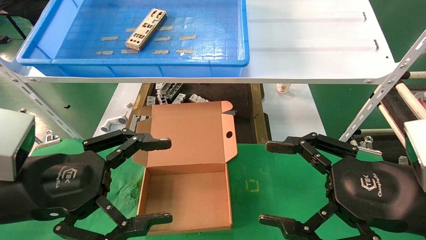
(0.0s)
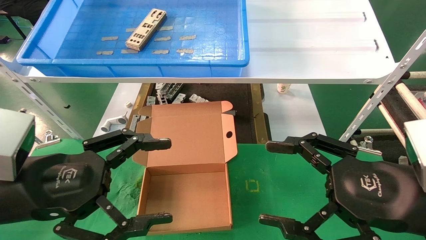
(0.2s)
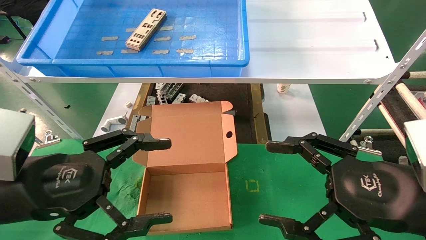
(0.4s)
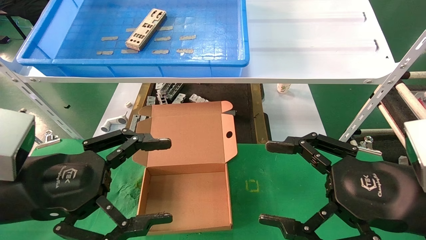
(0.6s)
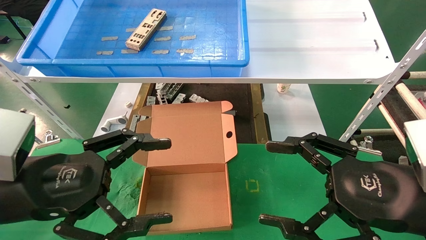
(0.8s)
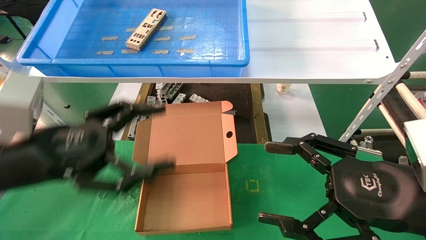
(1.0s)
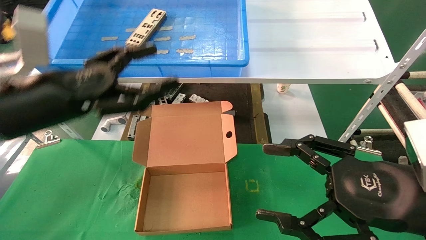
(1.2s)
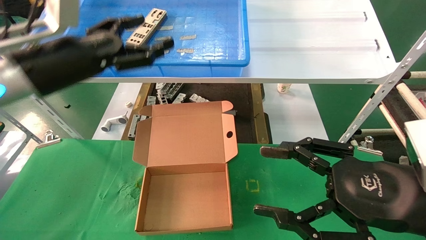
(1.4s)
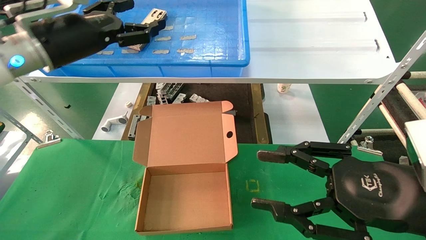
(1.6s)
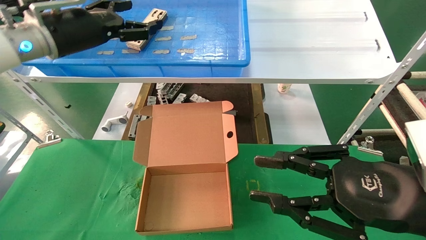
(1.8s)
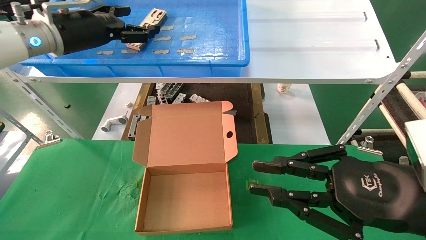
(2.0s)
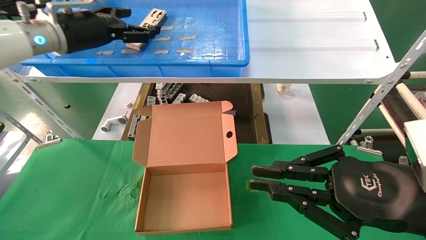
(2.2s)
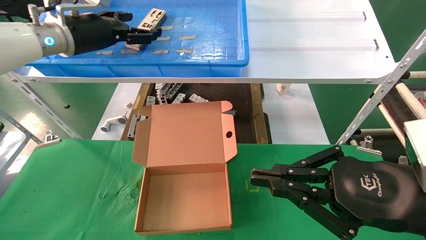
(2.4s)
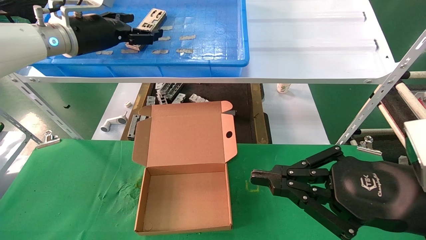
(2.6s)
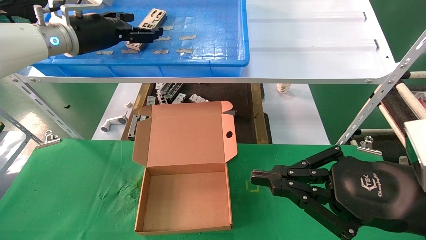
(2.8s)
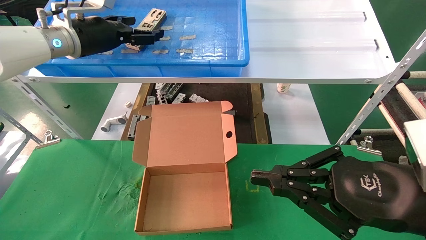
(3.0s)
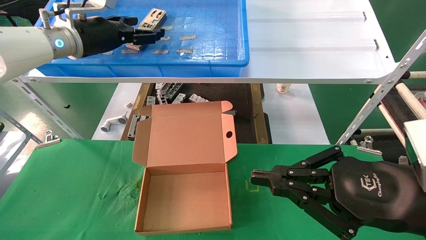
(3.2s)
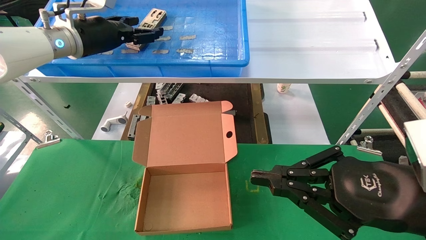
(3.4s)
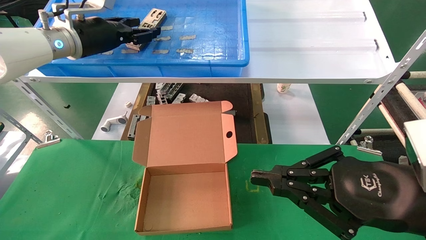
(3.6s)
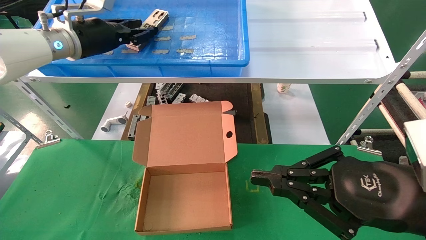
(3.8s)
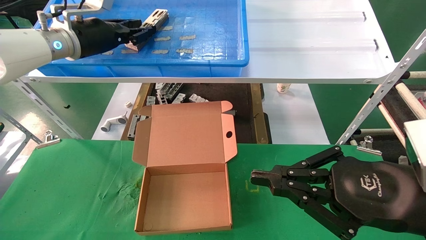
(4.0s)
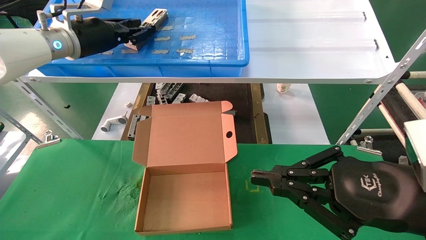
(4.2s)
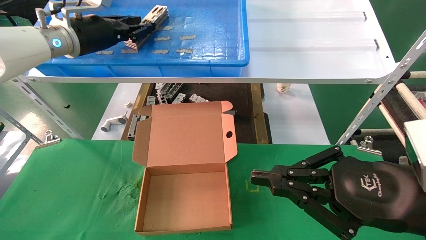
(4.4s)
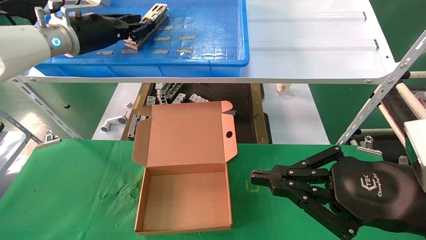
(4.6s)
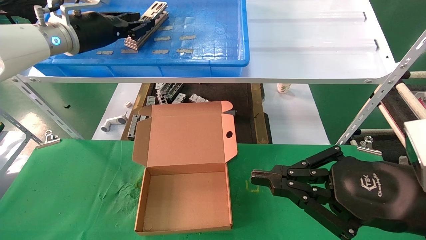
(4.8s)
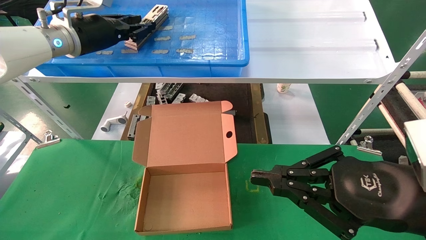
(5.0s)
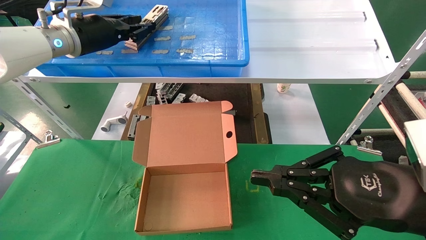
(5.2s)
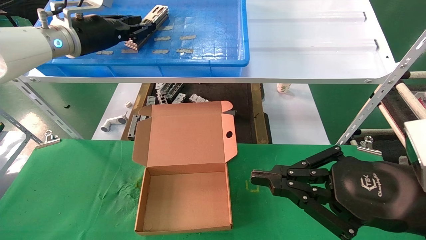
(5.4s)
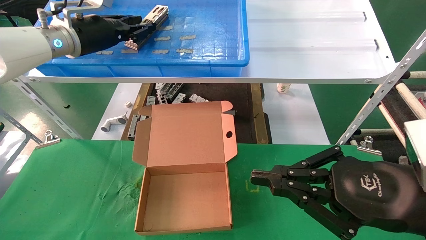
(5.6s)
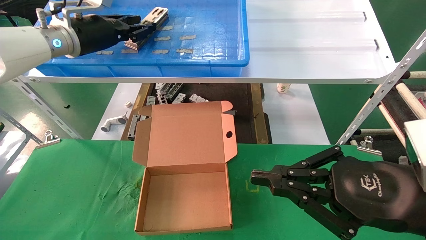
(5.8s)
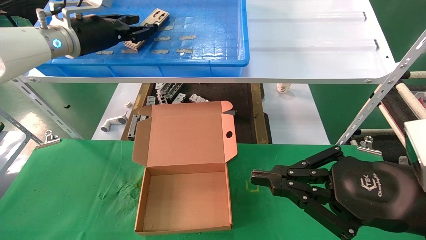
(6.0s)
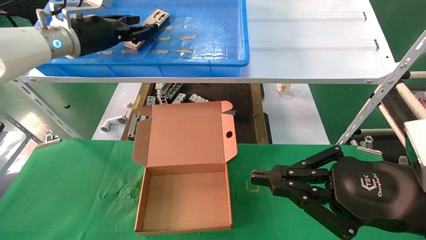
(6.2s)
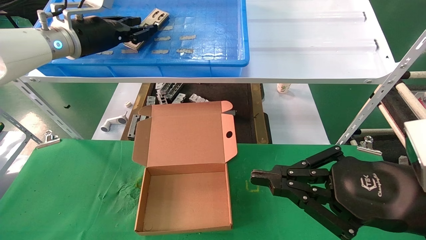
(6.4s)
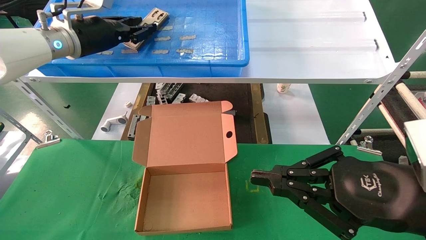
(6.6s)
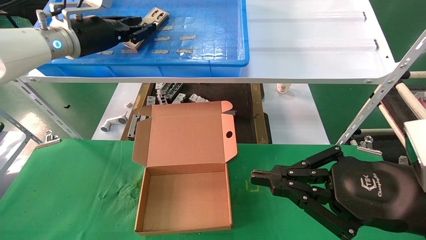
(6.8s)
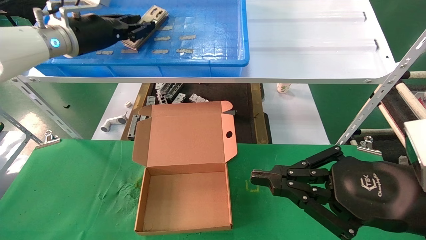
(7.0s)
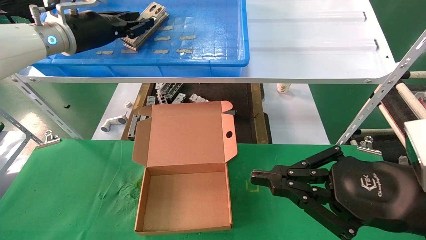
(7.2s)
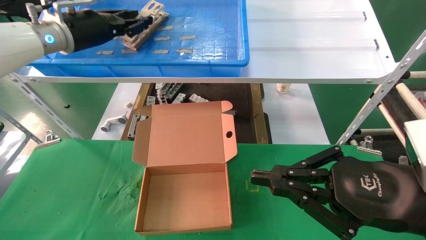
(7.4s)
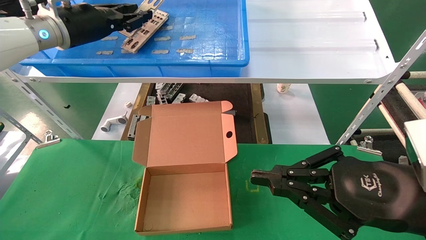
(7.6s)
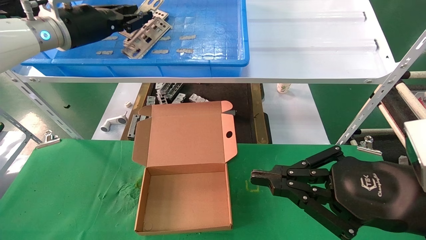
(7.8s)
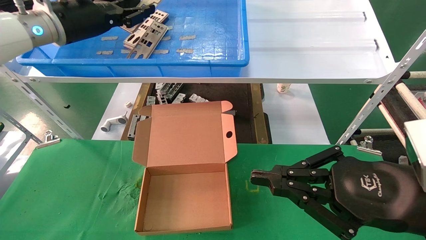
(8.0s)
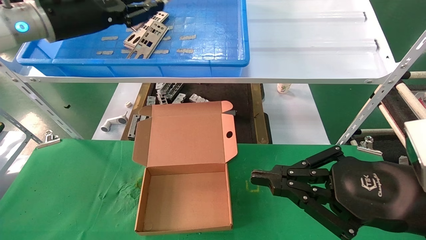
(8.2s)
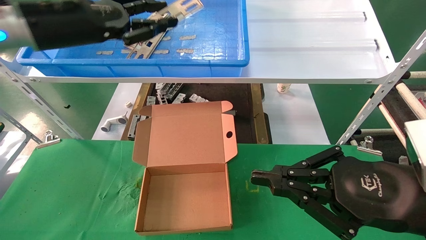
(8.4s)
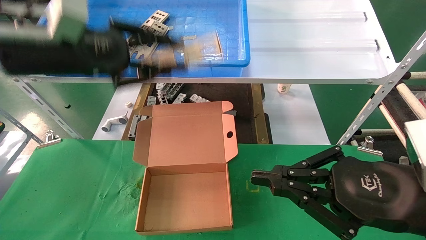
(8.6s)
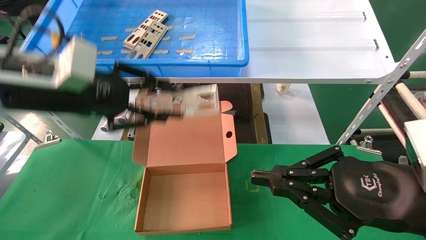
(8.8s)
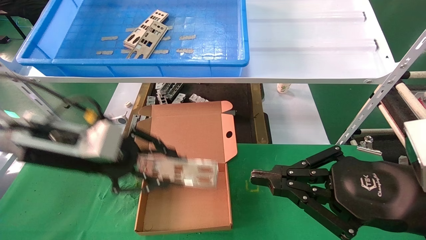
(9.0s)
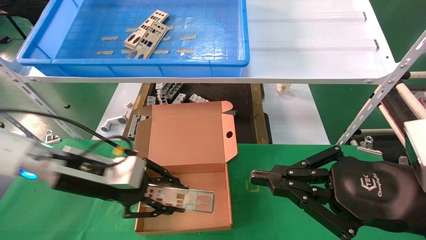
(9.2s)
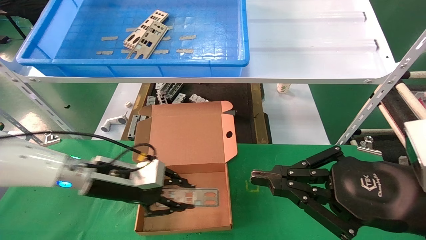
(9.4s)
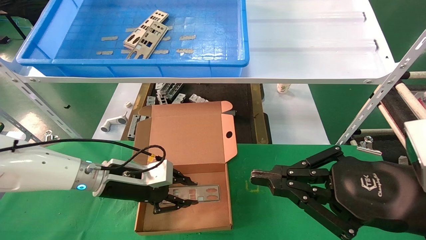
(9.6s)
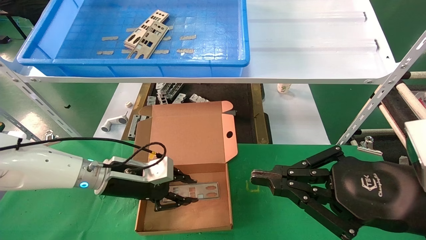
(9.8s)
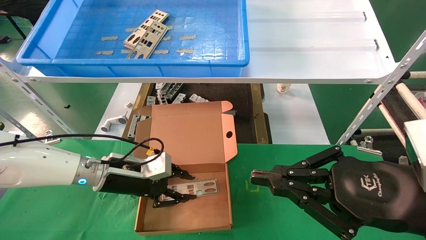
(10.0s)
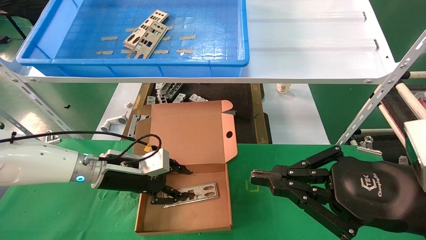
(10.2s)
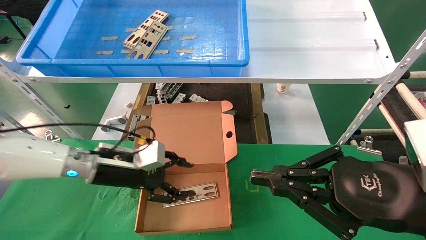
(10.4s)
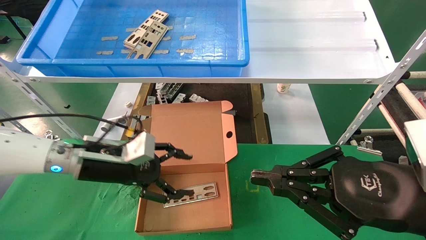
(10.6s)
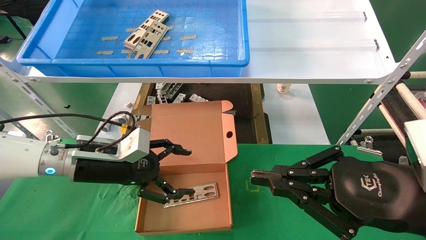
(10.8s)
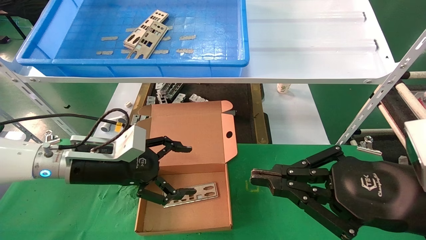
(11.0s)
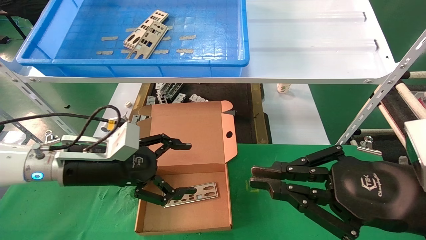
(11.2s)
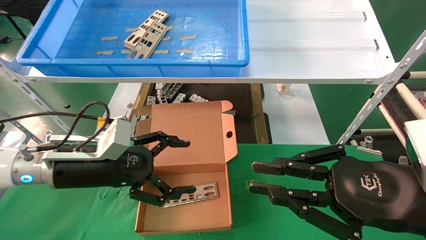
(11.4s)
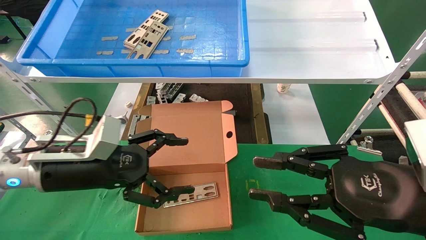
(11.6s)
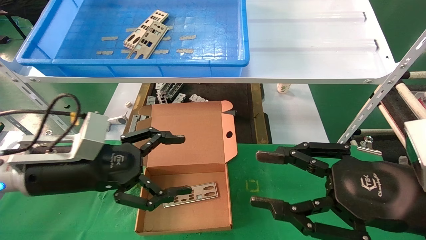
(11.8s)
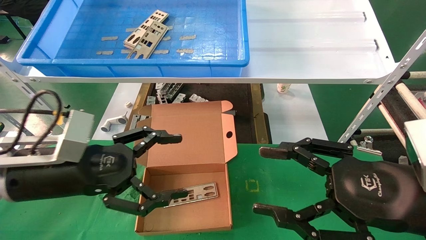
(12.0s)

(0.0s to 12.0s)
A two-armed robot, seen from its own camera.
Task of the whole recording: pick up the parts on the tray and put them in the cardboard box.
Step, 1.4s - 7.2s: Pick up the IO bracket from the container box.
Step, 7.4s - 10.4s: Place the IO bracket into the ingredient slot.
0.0s - 1.6s: The left gripper shifts some 20 cm forward and upward.
1.6s - 3.0s: The left gripper is displaced forward by some 10 cm. The right gripper closes.
3.0s - 4.4s: The left gripper closes.
4.4s - 6.0s: Both grippers stay put.
6.0s - 7.6s: The grippers move only a little.
7.6s - 9.0s: The left gripper is displaced downward and backward by roughly 20 cm.
9.0s - 10.4s: The left gripper goes approximately 10 cm downward and forward, and opens.
10.4s - 12.0s: The right gripper opens; the left gripper heads backward and upward, covering approximately 15 cm, and opens its fingers.

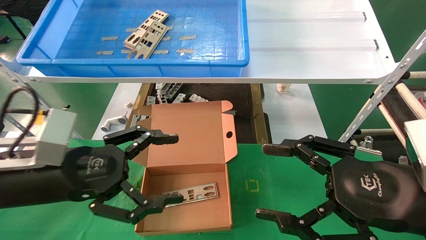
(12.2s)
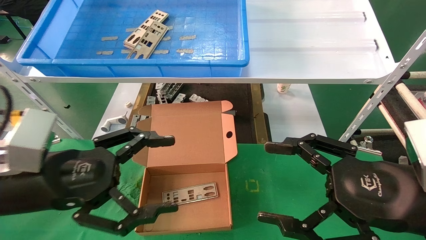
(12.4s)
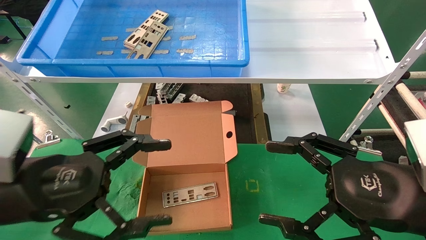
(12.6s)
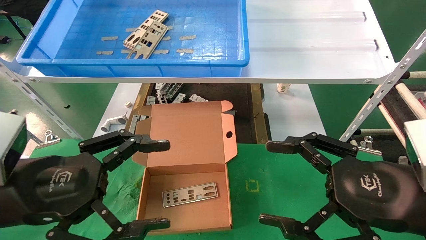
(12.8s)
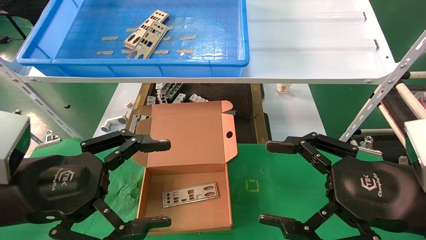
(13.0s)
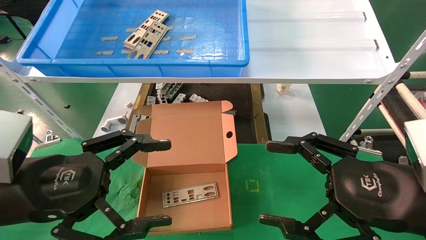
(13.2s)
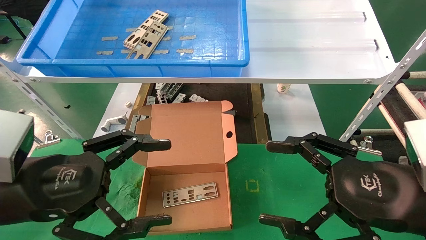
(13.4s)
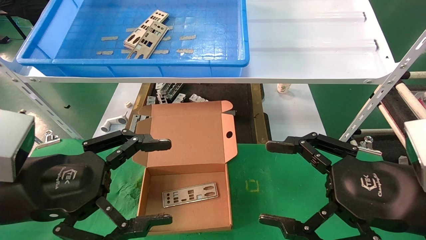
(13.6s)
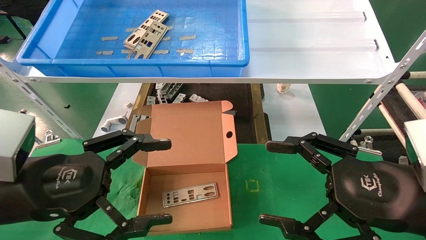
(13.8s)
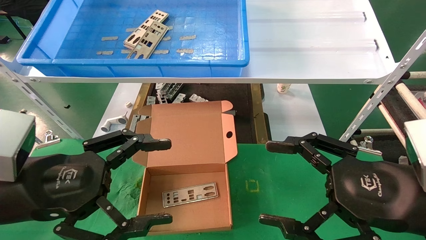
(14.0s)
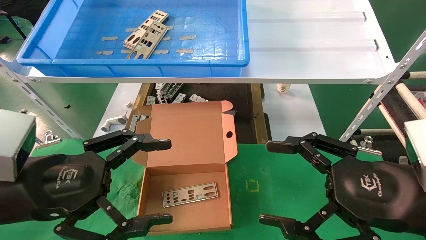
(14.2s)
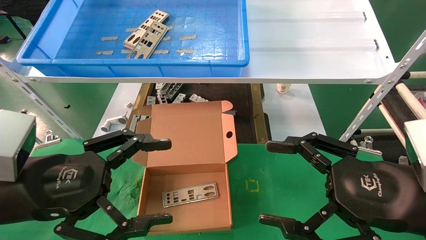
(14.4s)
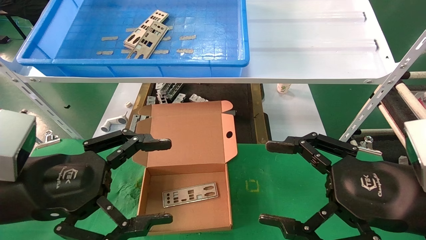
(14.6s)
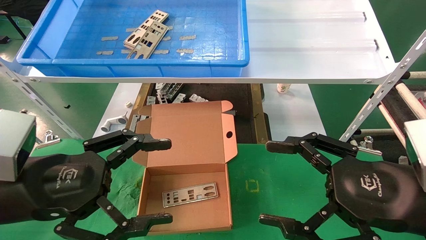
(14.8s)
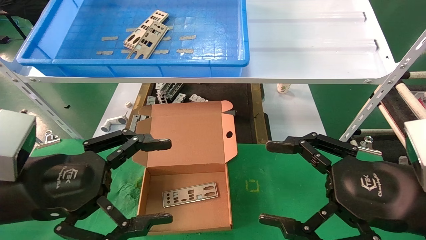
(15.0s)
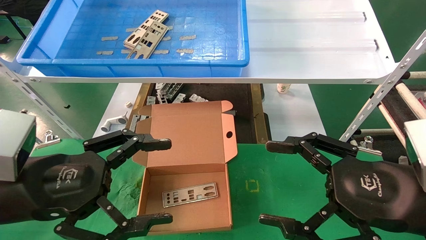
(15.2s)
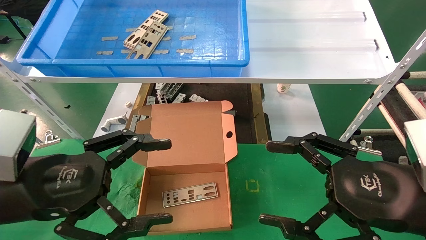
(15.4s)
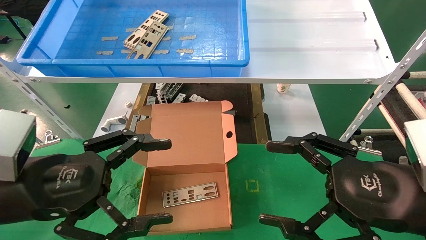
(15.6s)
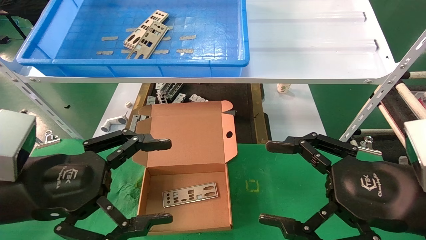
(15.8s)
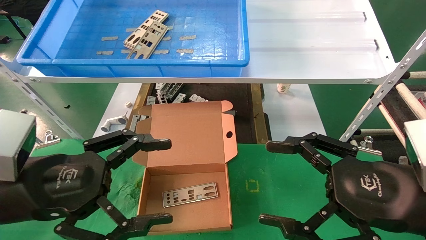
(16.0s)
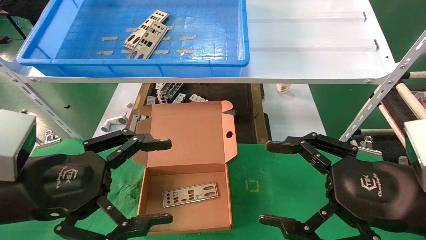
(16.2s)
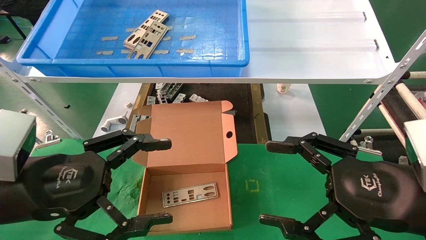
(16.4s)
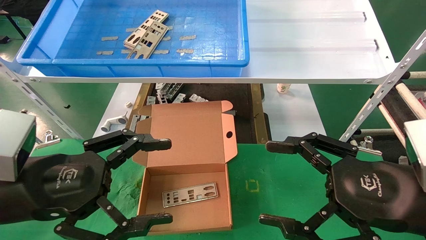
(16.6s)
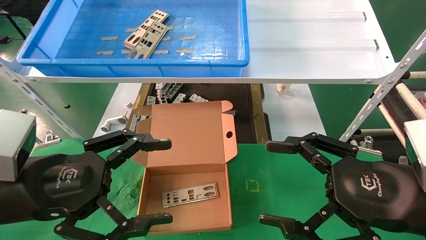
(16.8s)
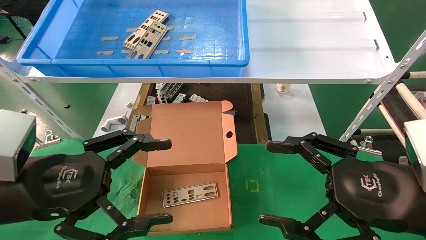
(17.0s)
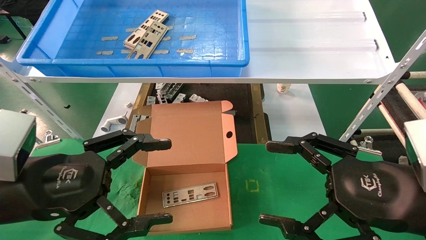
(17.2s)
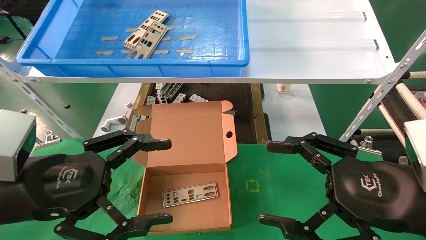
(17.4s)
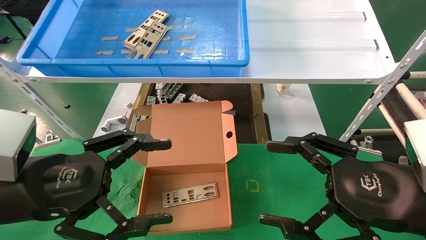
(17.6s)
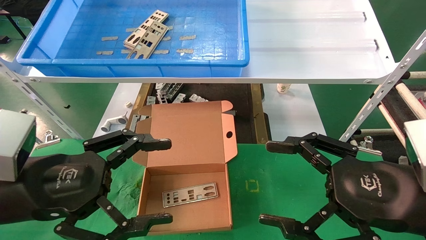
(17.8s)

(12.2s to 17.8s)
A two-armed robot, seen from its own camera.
Task of the whole recording: pick up the parts on the tray and put them in the cardboard box.
12.2s - 13.6s: There are only small adjustments of the grippers.
13.6s - 17.8s: Both grippers stay put.
